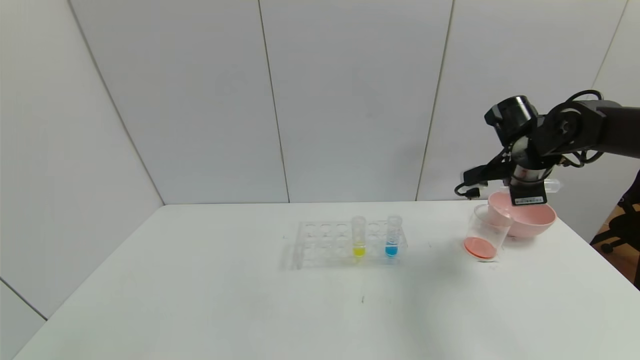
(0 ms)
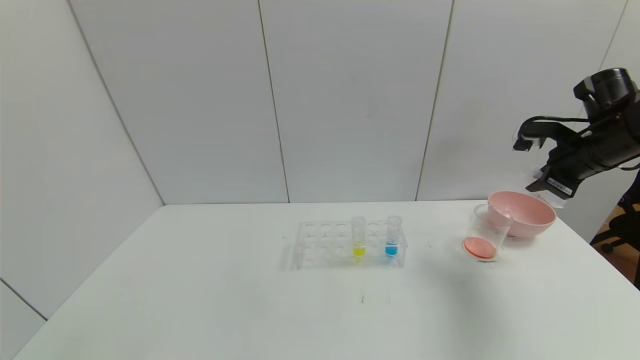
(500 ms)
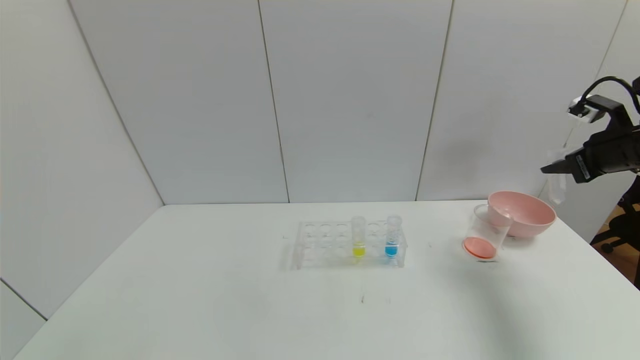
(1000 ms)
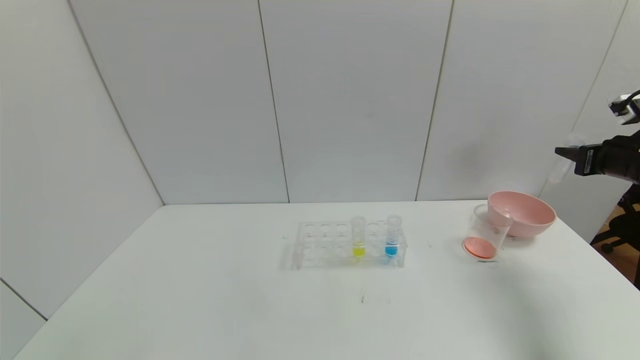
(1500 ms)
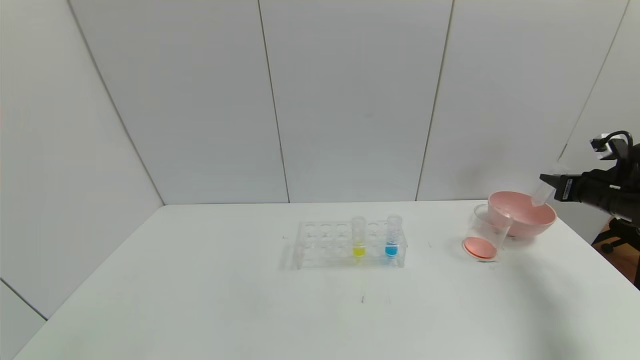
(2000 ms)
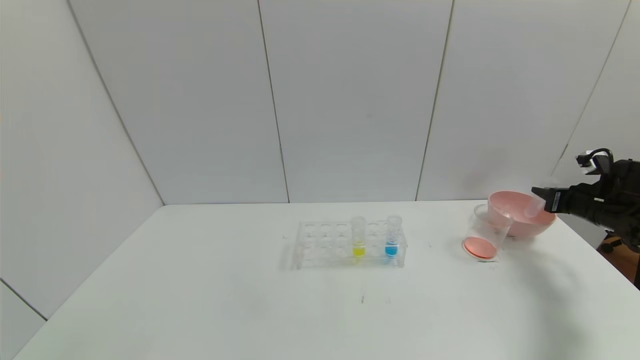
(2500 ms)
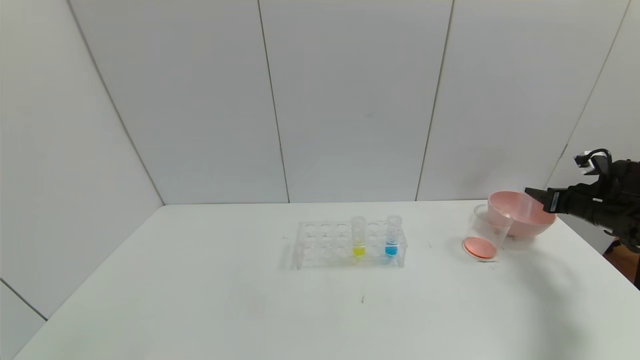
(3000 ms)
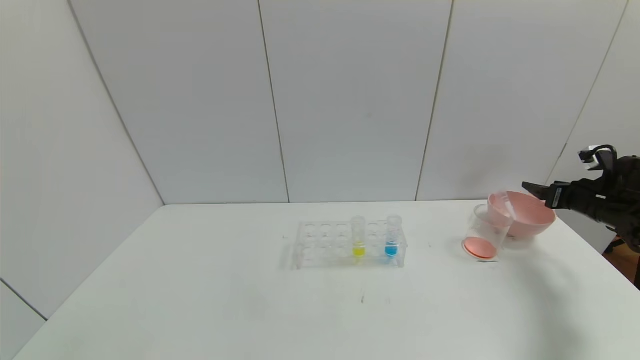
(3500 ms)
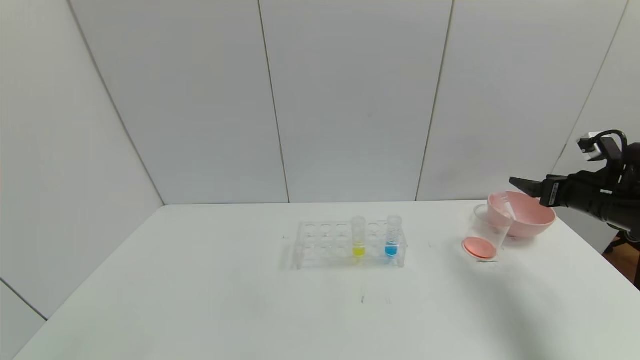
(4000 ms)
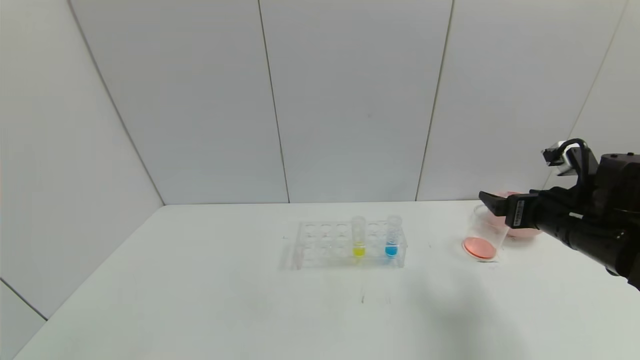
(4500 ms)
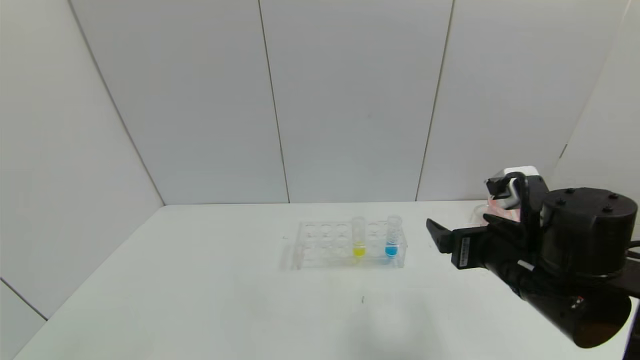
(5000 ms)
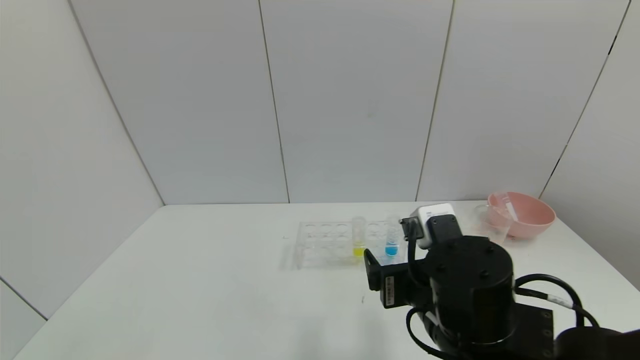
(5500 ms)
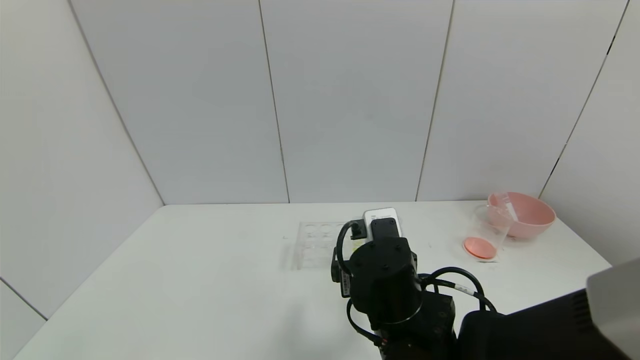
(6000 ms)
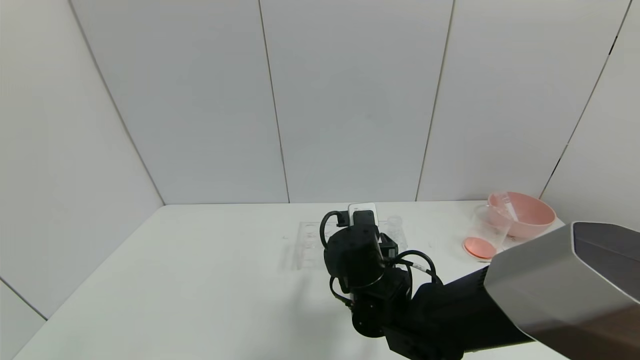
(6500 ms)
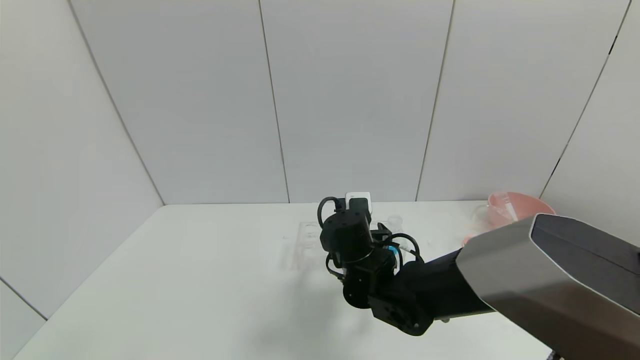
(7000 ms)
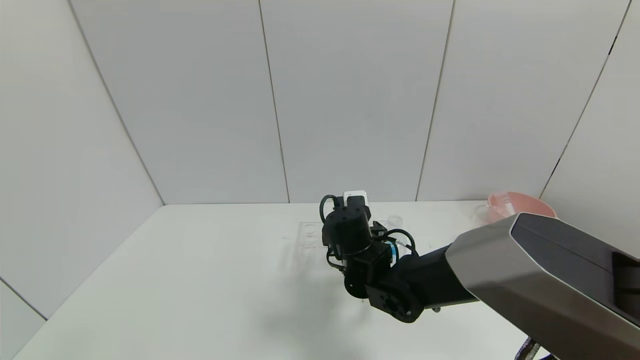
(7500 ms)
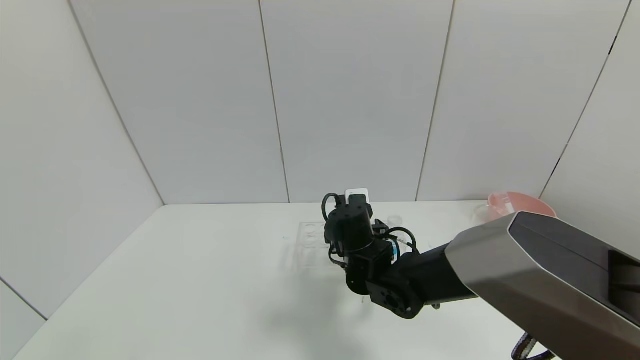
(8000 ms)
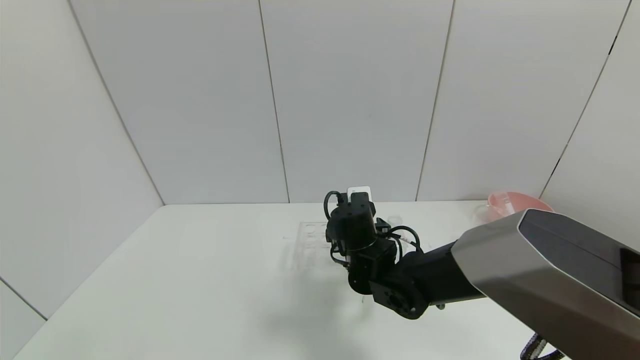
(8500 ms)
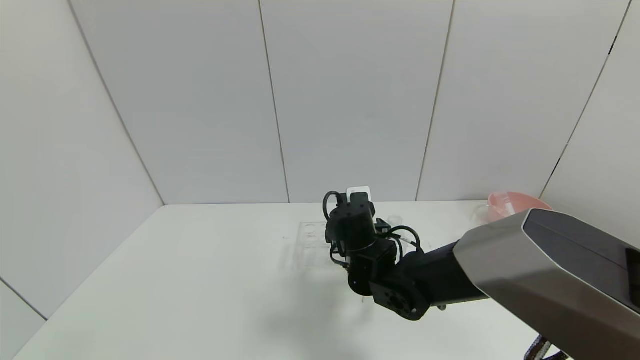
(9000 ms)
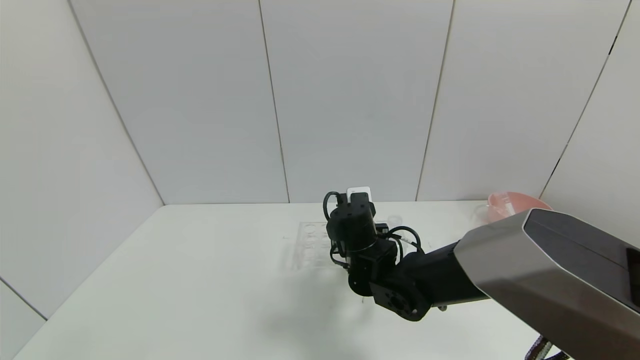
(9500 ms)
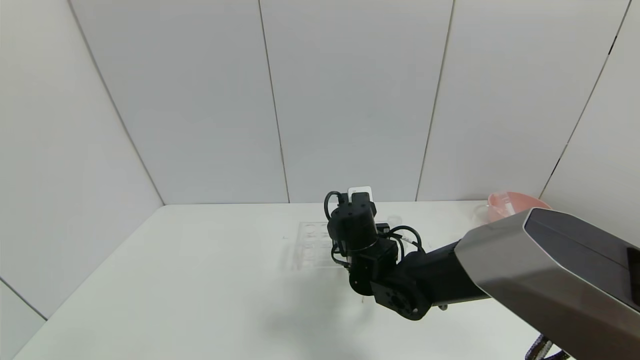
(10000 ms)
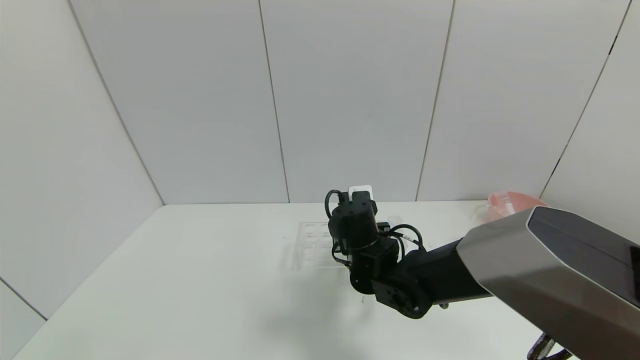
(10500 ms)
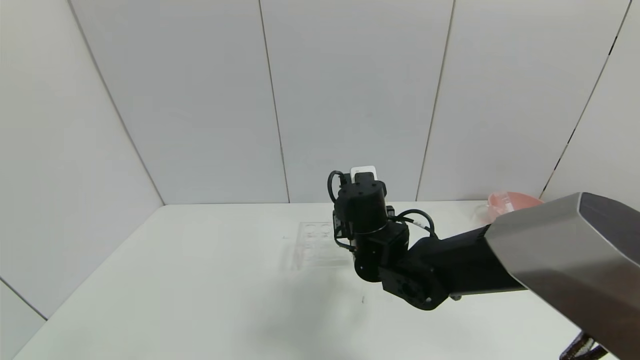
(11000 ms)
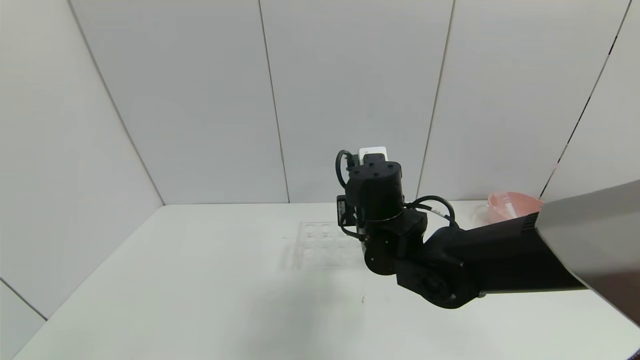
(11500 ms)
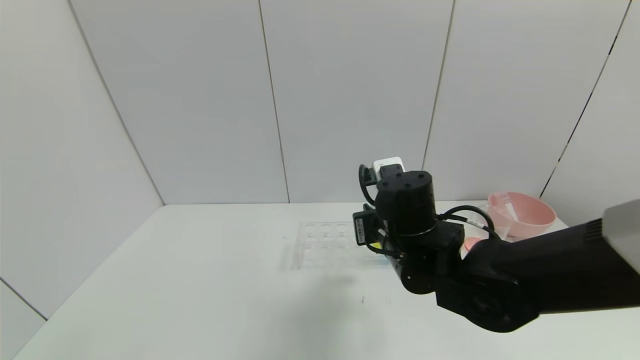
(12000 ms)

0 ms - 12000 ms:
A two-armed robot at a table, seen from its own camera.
Task of the whole recording: pick up the test tube with yellow pigment and the test tube with red pigment by grippers and pour them into the beaker.
Step, 0 ms - 3000 ms: Place the test tube into the bowl with the right gripper.
Step, 3500 ms - 10000 ms: Grasp the yellow reagent with the right gripper.
0 ms - 2000 ms: The right gripper goes roughly 15 cm to the right.
2000 ms - 4000 ms: The right gripper travels to the left by about 5 cm, and opens.
4000 ms - 6000 ms: The right gripper goes approximately 35 cm to the left.
6000 ms - 8000 ms: The right gripper moves forward, roughly 10 cm.
8000 ms - 10000 ms: The right gripper closes its fingers.
10000 ms - 12000 ms: The right gripper travels upward, backward and to the right by some 10 cm.

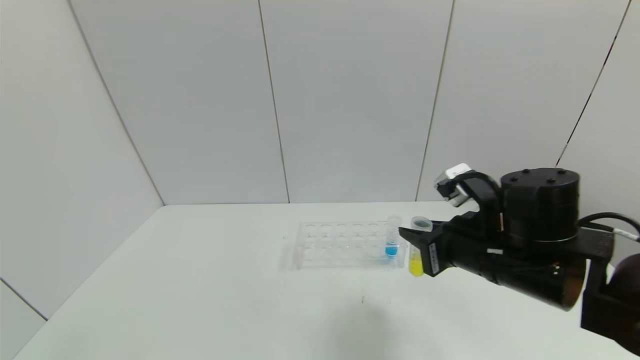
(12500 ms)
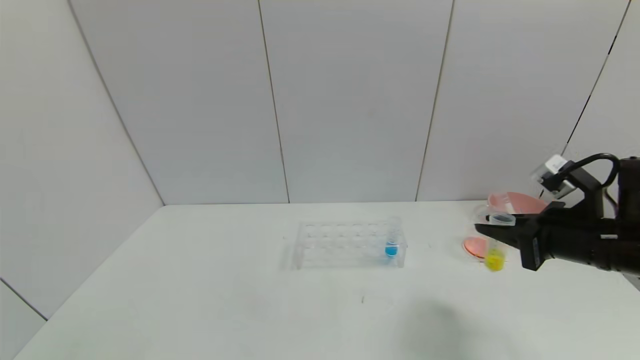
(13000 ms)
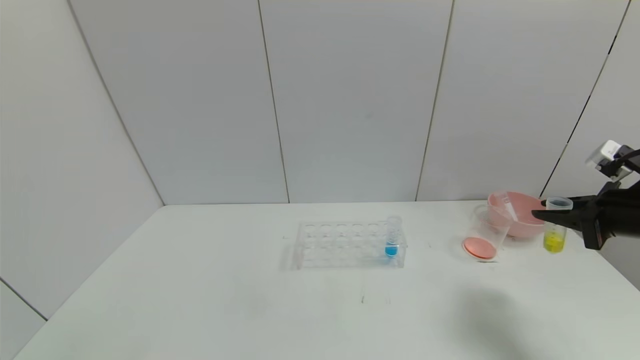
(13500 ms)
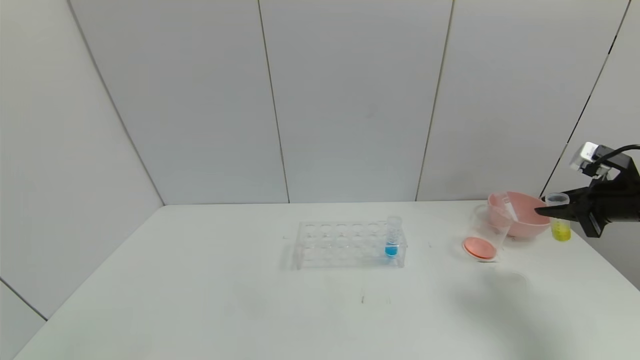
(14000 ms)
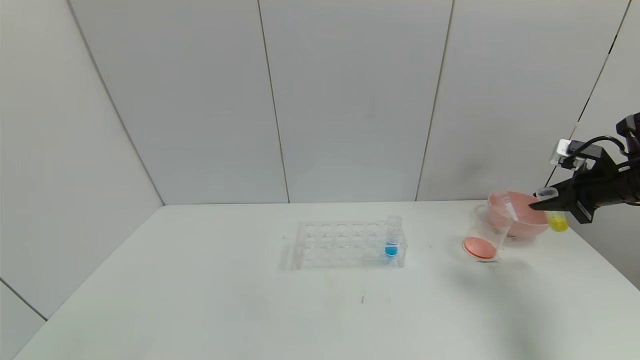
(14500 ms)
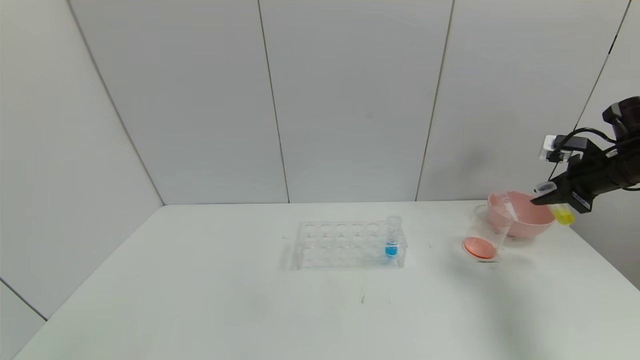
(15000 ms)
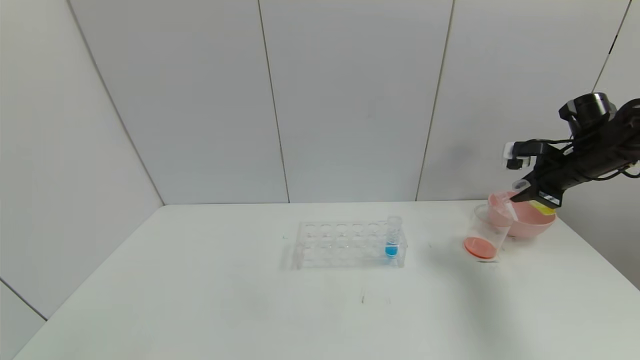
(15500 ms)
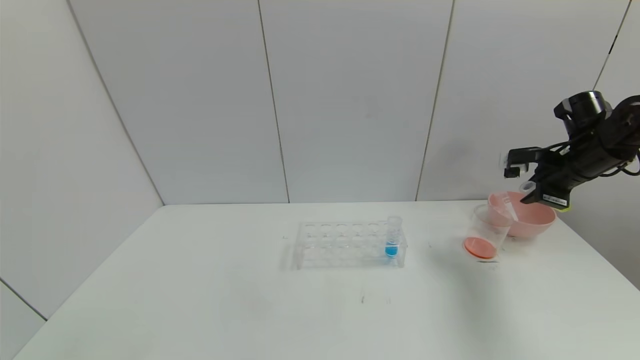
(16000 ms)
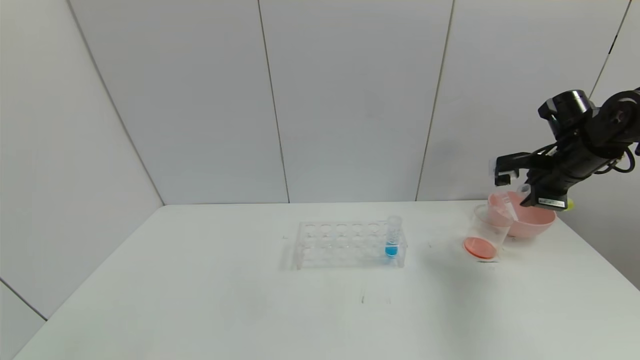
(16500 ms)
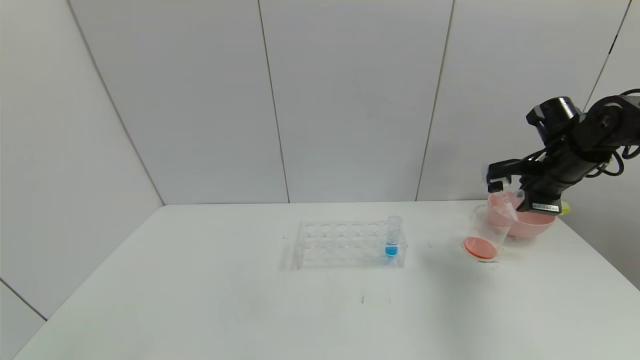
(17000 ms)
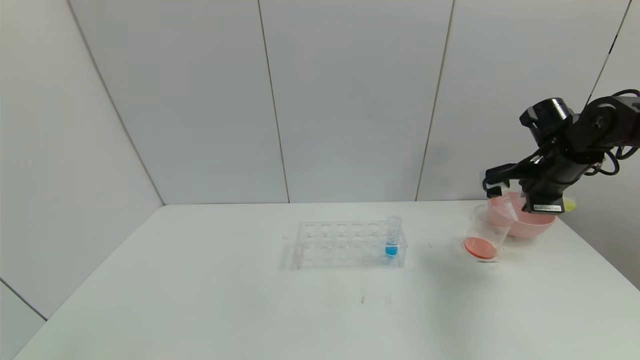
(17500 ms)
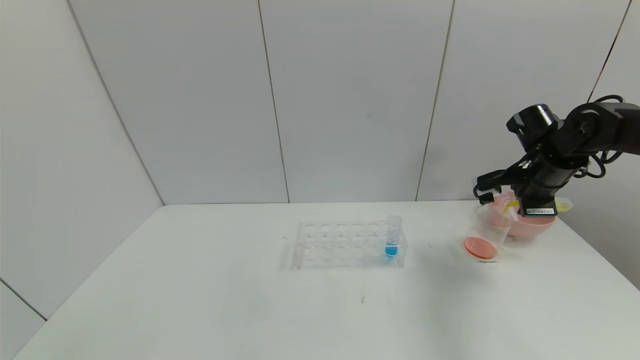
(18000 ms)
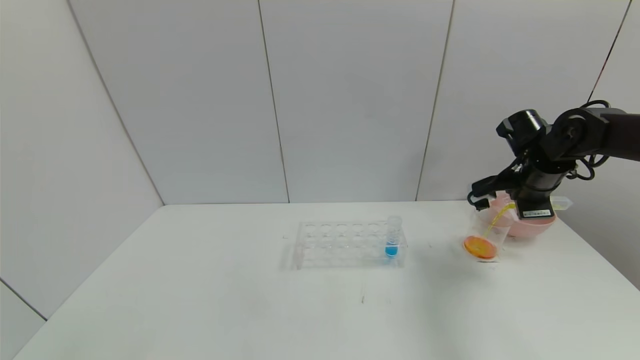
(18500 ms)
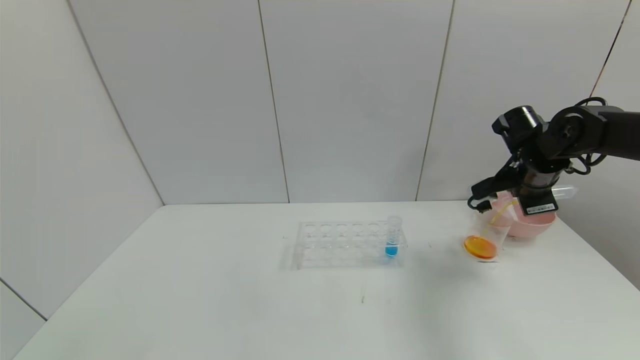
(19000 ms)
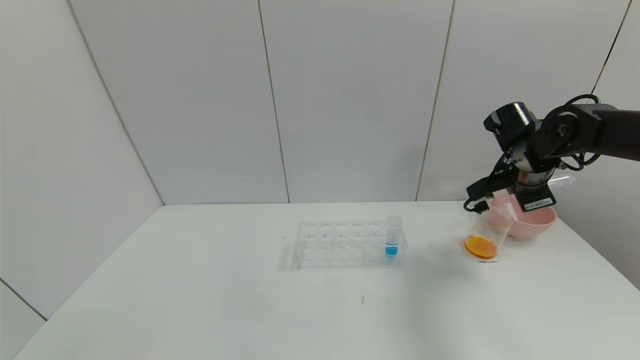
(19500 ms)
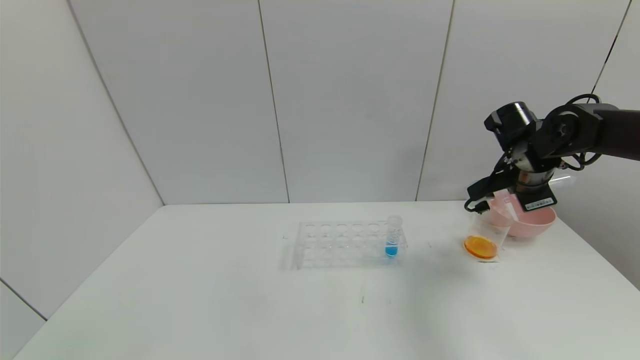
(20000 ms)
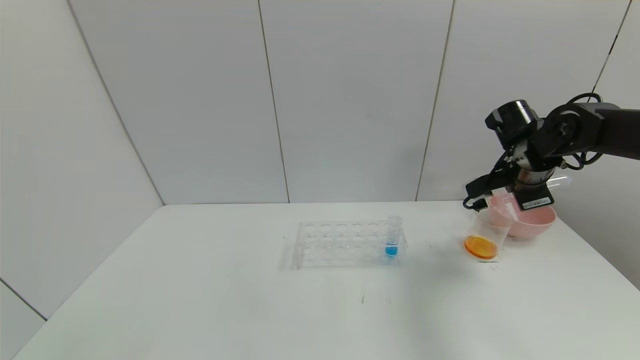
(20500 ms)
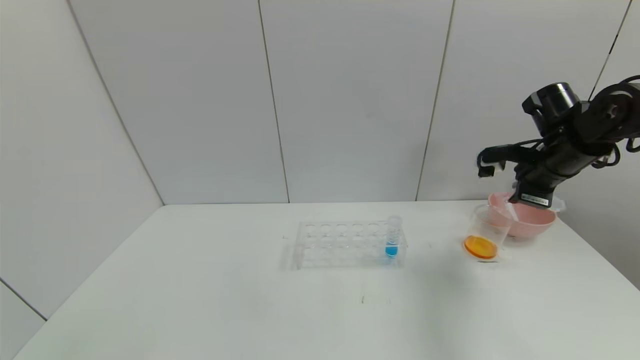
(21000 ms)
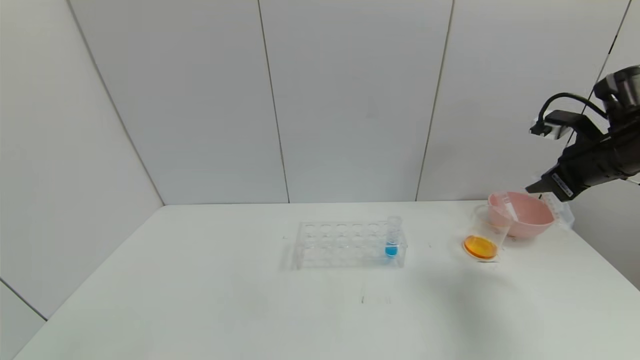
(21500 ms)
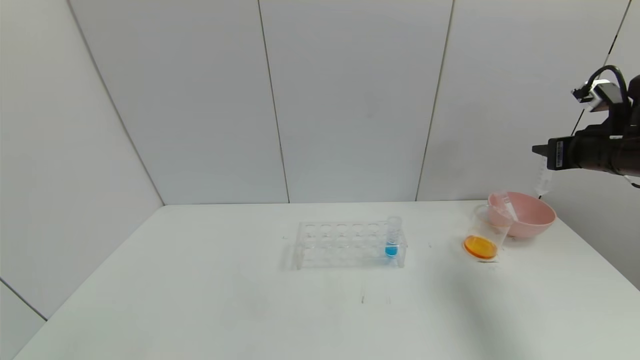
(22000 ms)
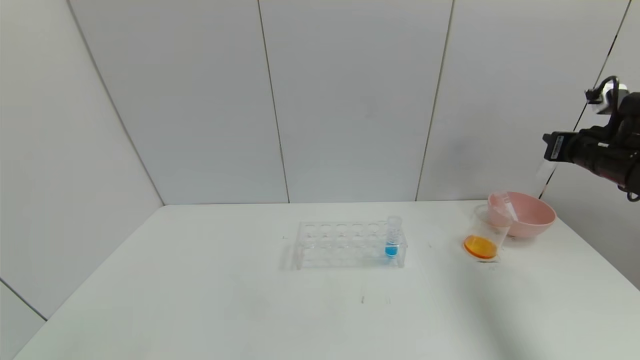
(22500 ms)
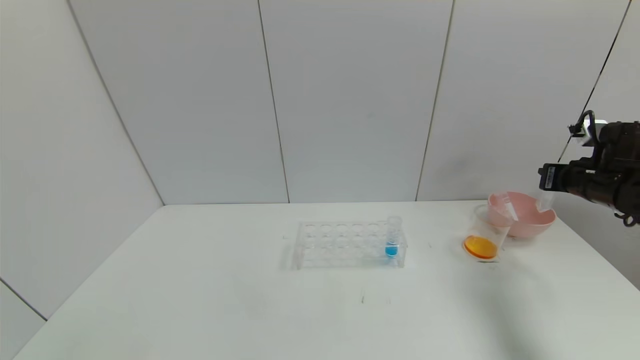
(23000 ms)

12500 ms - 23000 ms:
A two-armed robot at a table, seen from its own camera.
Task of the whole recording: pick up the test tube with yellow pigment and the test tube with red pigment by grippers and pour them into the beaker.
Step, 12500 ms - 19500 ms: Pour the yellow reagent into the graduated cylinder with the right gripper.
12500 ms - 14500 ms: The right gripper travels to the right and forward by some 30 cm.
14500 ms - 16500 ms: The right gripper moves to the left, roughly 10 cm.
16500 ms - 19000 ms: The right gripper ends up some 5 cm from where it was.
21000 ms - 23000 ms: The right gripper travels to the right by some 10 cm.
